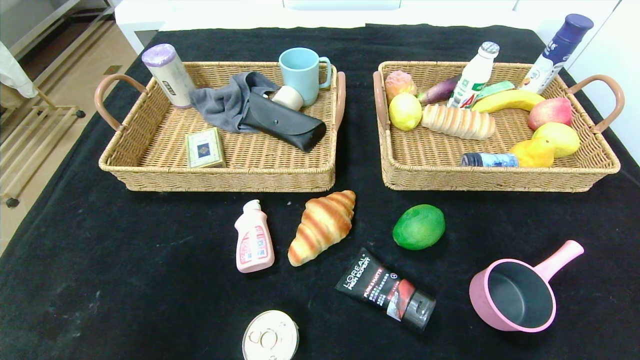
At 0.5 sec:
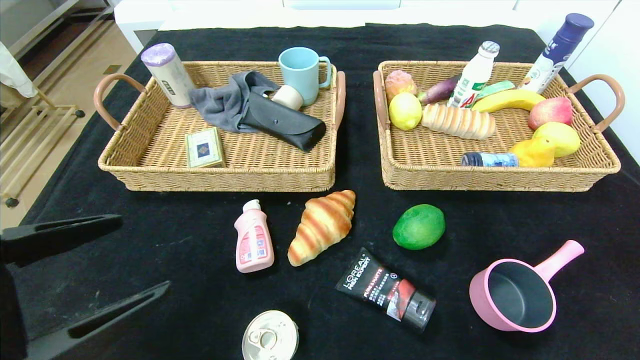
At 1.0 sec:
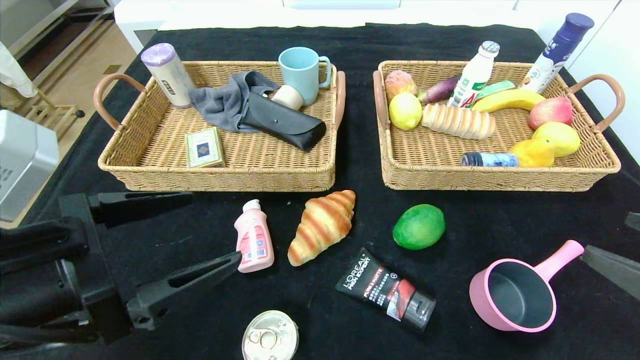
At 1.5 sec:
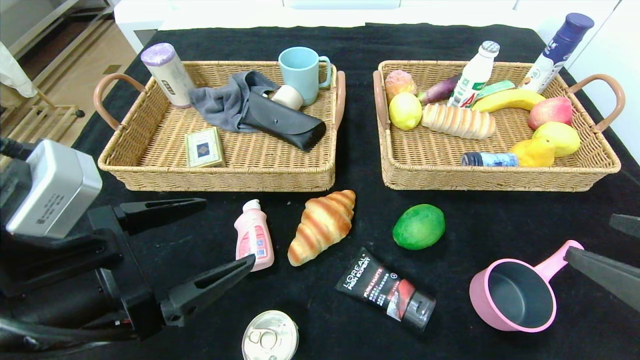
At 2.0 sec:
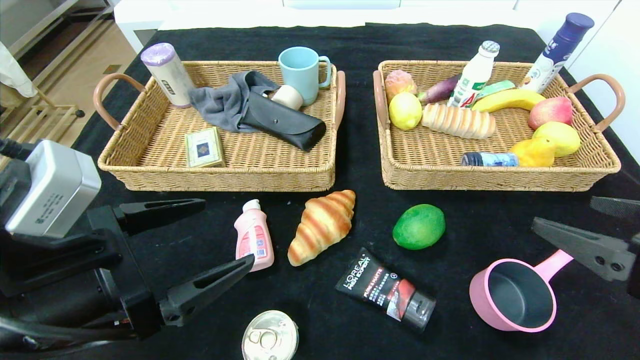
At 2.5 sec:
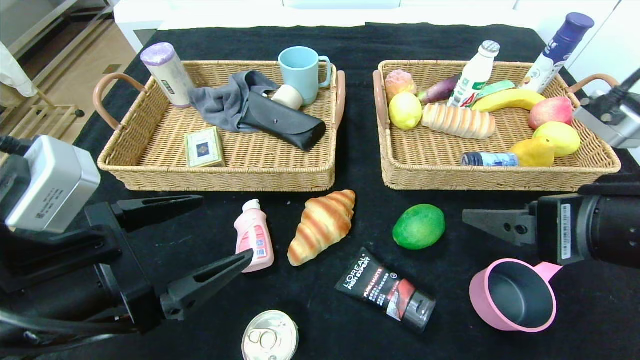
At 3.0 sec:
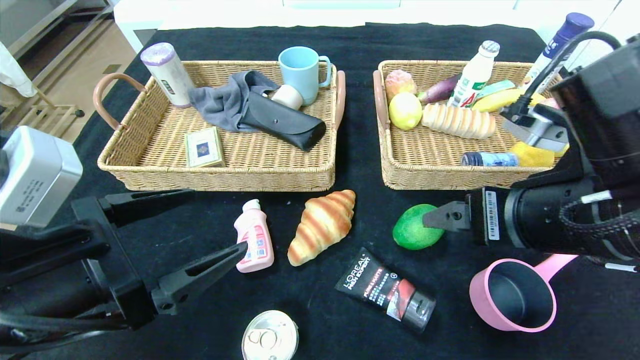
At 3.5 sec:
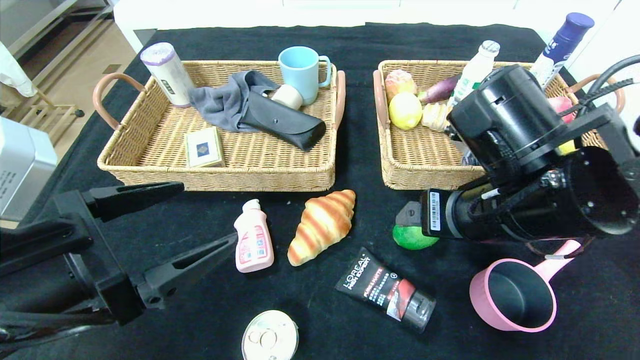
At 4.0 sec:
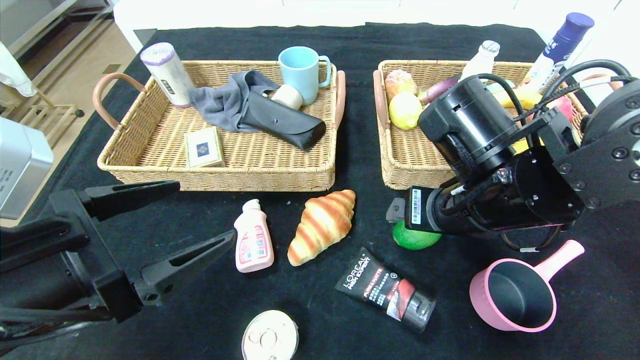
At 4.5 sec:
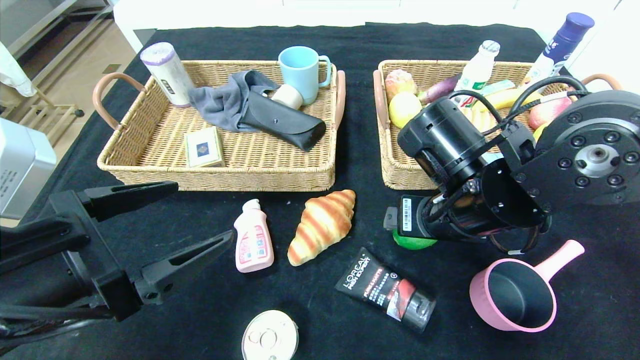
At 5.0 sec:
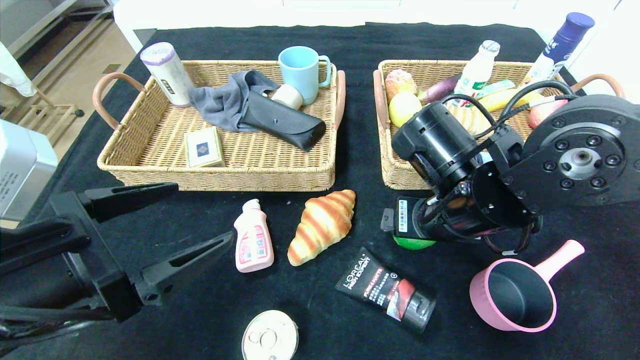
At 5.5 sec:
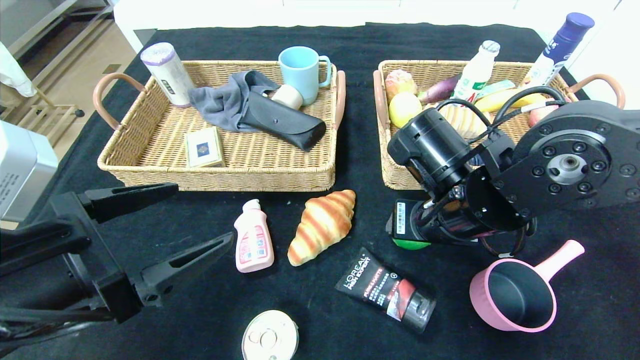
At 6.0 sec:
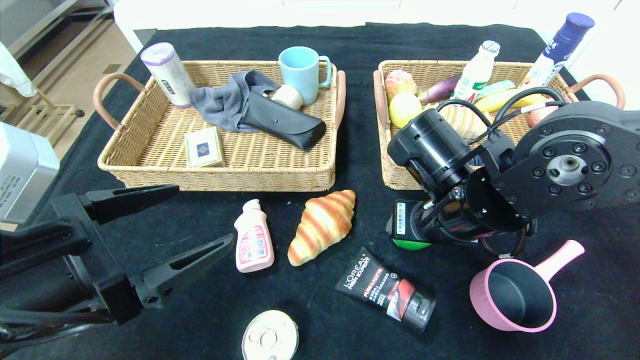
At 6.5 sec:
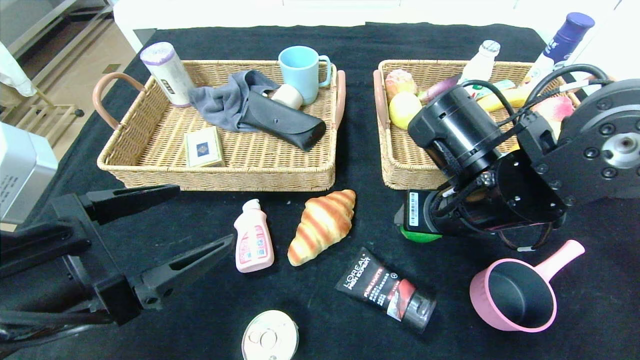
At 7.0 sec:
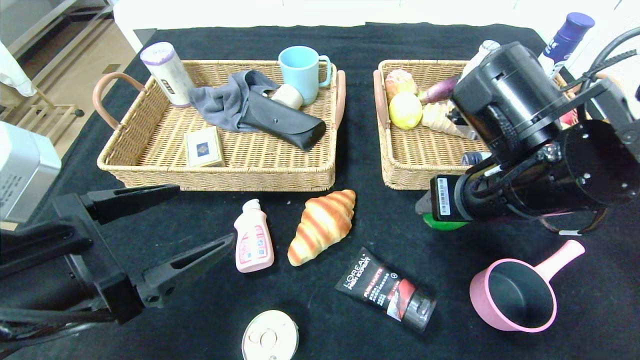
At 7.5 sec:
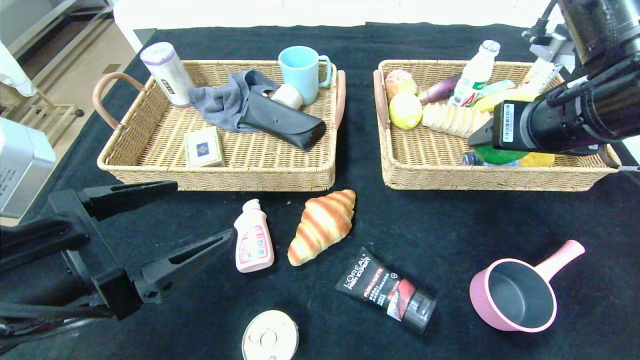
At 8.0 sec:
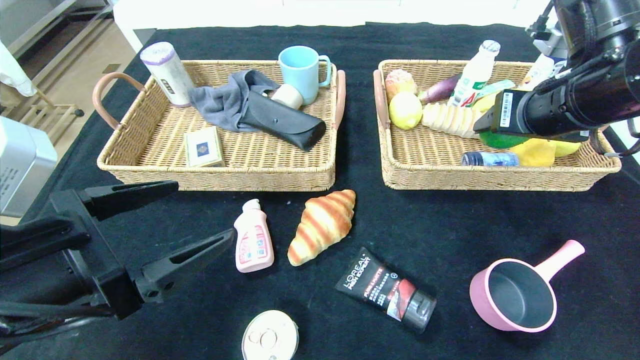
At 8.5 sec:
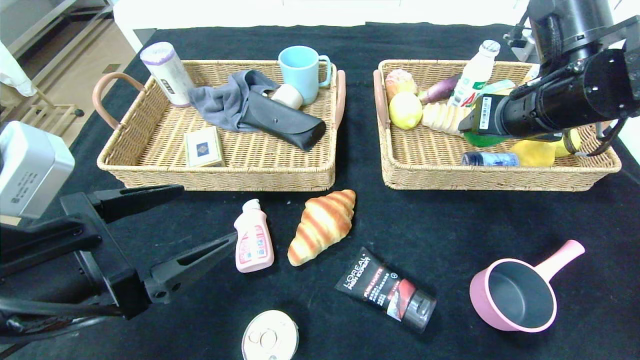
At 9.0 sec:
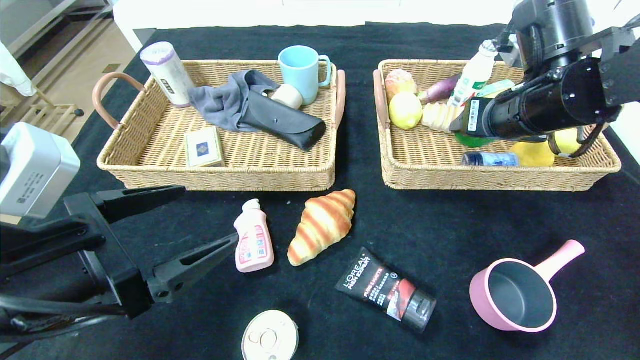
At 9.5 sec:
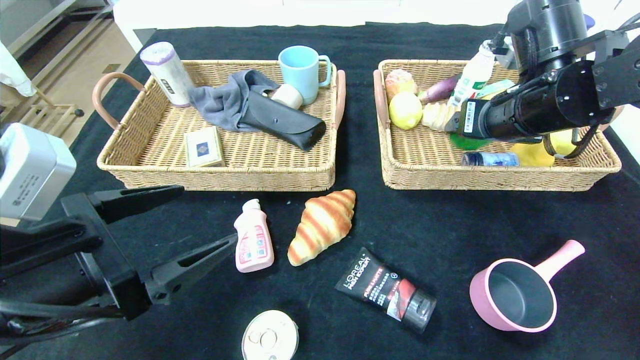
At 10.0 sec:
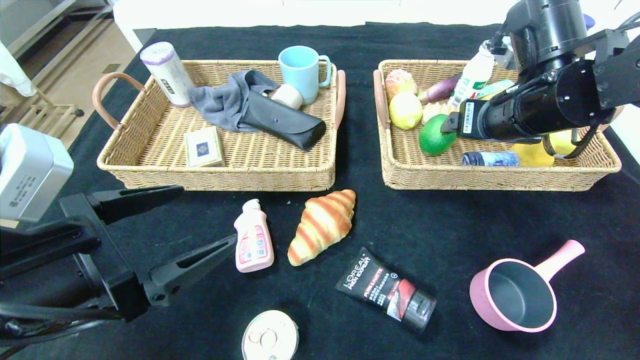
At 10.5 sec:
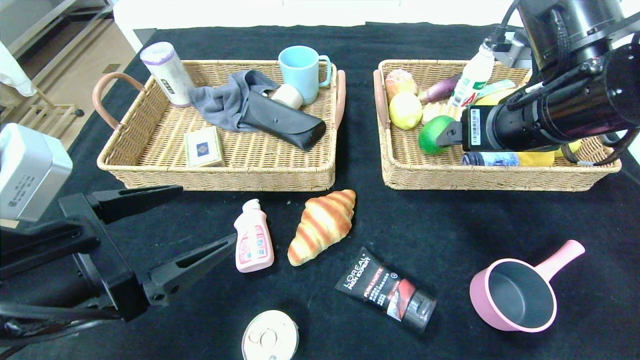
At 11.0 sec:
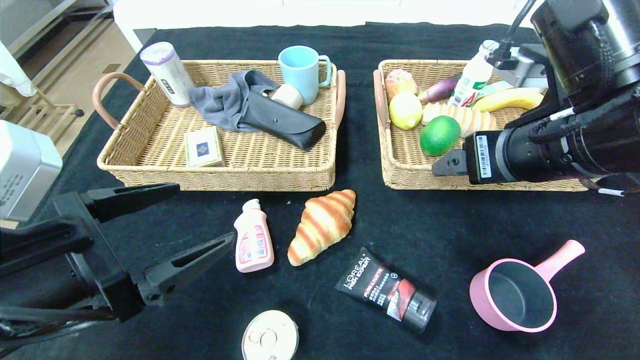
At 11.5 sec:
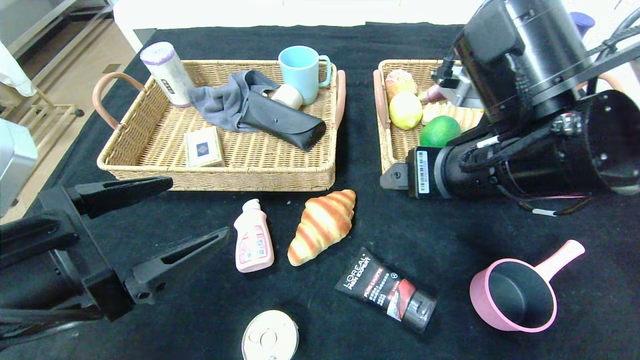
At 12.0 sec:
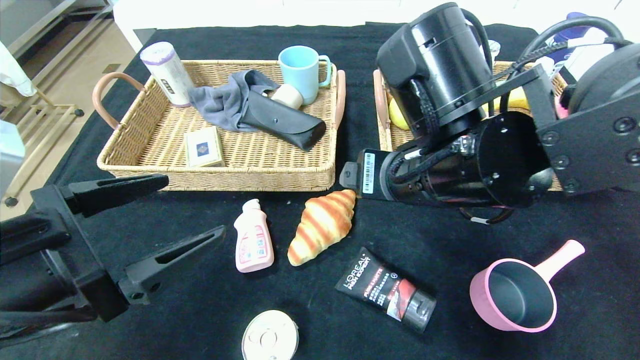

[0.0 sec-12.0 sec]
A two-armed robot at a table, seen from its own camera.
Step, 0.0 sec to 9.5 sec: Grasp the green lemon and put it in the right basket.
0.0 sec to 2.0 sec: The left gripper moves forward and to the right, some 15 cm. Meanwhile the right gripper travels forward, to the left and upward by approximately 15 cm.
2.0 sec to 4.0 sec: The right gripper is displaced to the left and forward by approximately 20 cm.
4.0 sec to 6.0 sec: The grippers stay close to where they were, moving slightly.
6.0 sec to 8.0 sec: The right gripper shifts approximately 15 cm upward and to the right.
8.0 sec to 10.0 sec: The grippers stay close to where they were, moving slightly.
10.0 sec to 12.0 sec: The right gripper travels to the left and backward by approximately 15 cm.

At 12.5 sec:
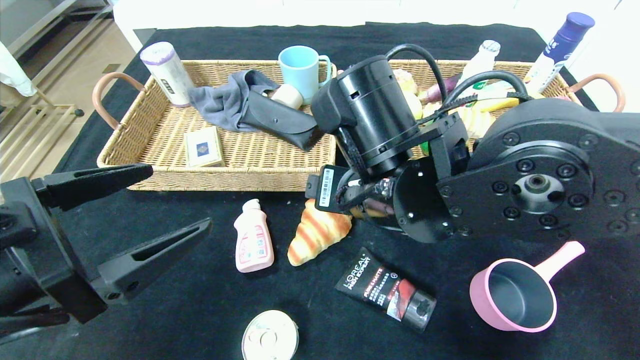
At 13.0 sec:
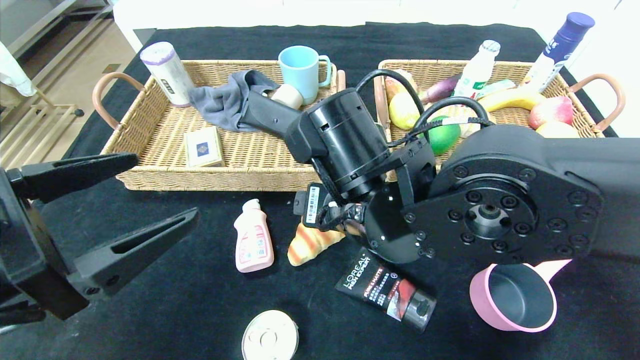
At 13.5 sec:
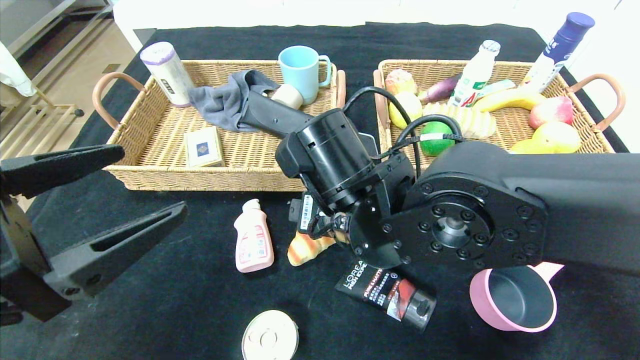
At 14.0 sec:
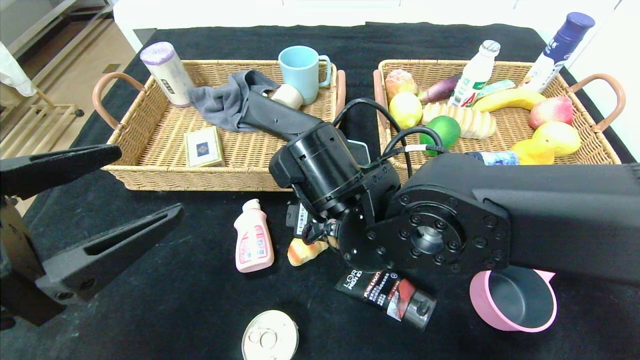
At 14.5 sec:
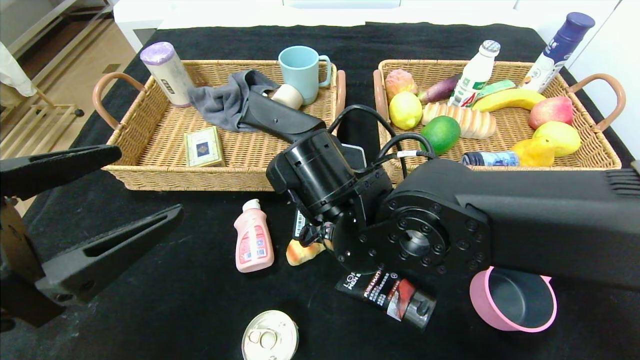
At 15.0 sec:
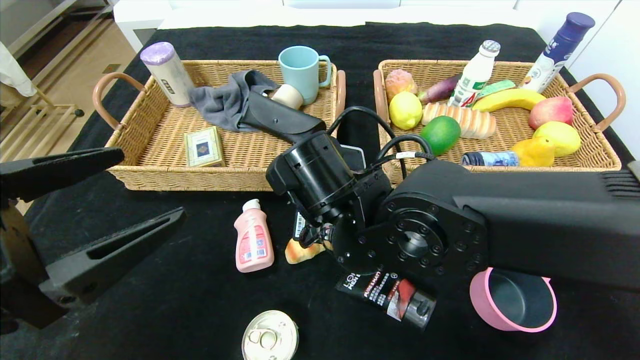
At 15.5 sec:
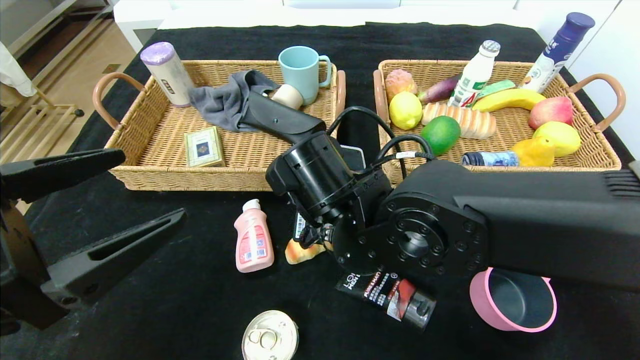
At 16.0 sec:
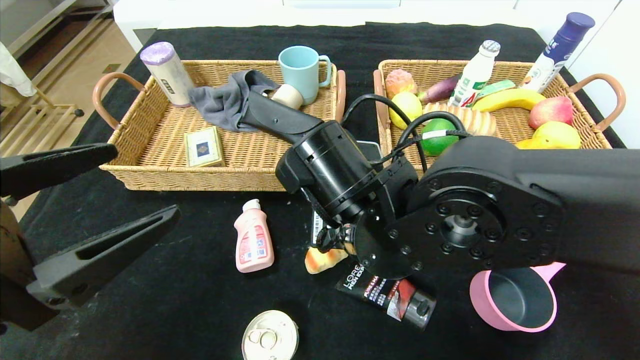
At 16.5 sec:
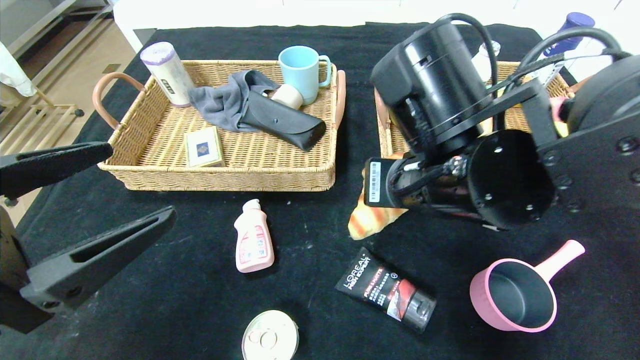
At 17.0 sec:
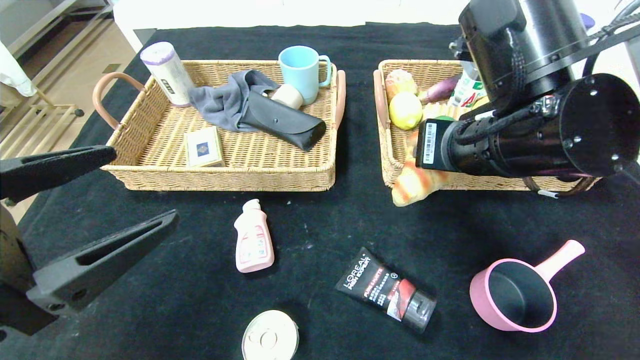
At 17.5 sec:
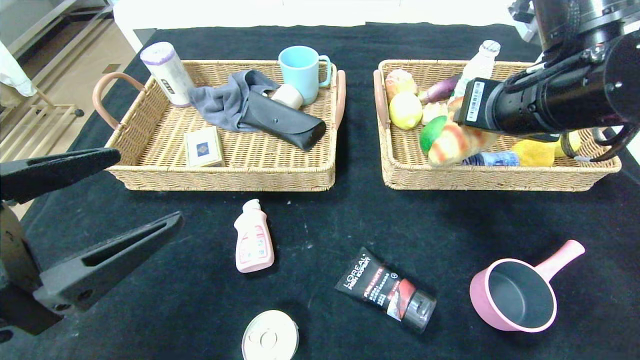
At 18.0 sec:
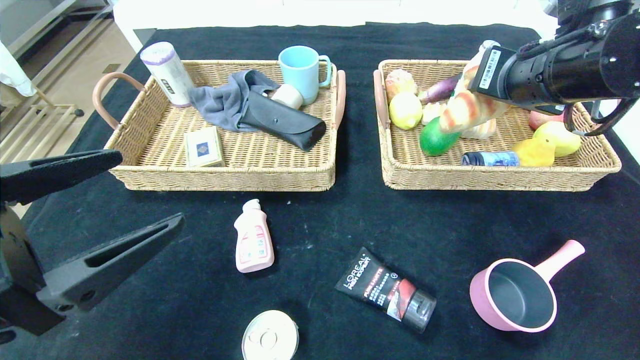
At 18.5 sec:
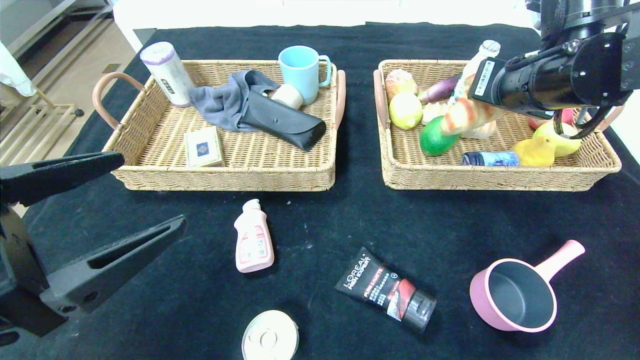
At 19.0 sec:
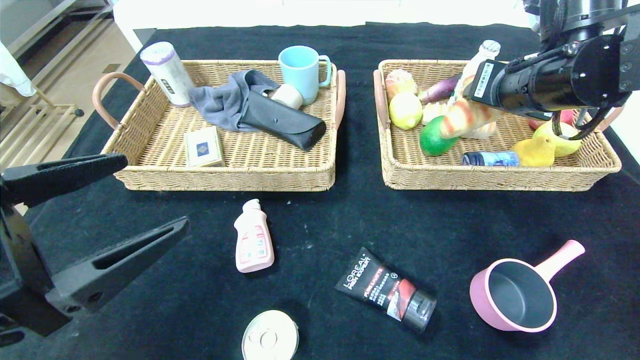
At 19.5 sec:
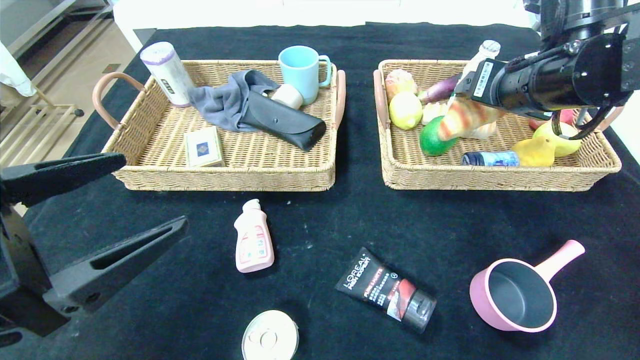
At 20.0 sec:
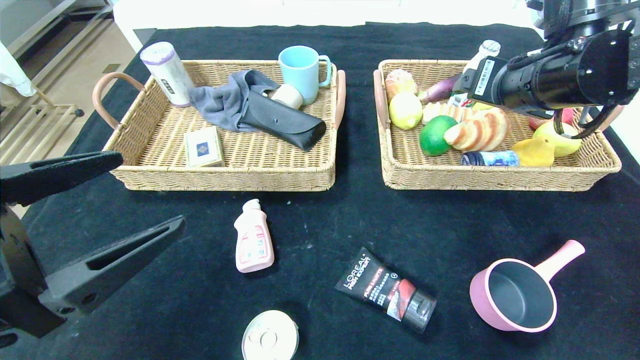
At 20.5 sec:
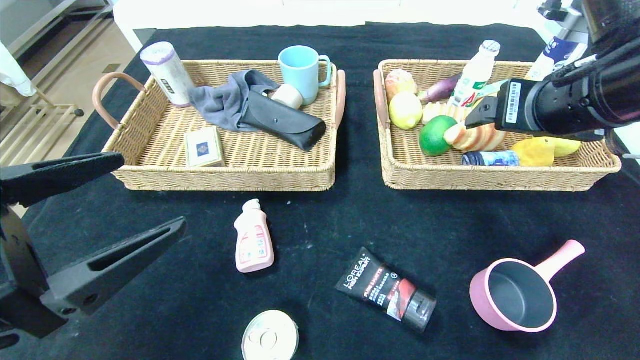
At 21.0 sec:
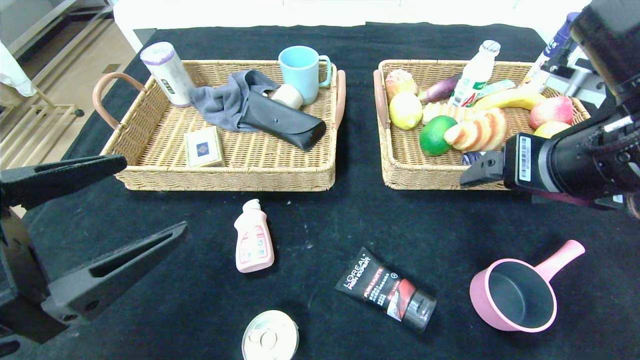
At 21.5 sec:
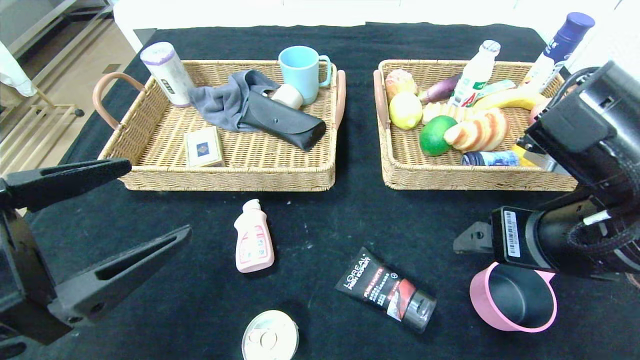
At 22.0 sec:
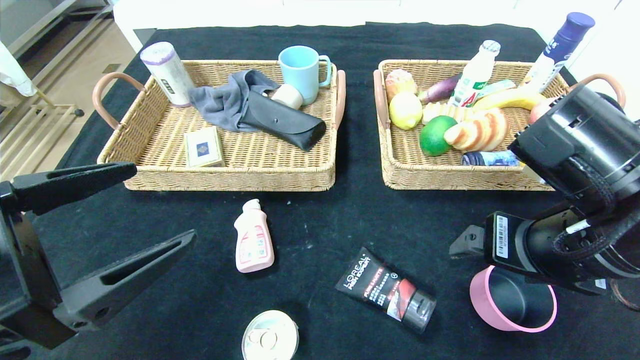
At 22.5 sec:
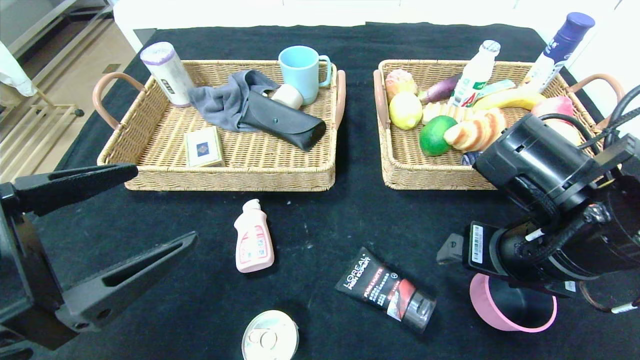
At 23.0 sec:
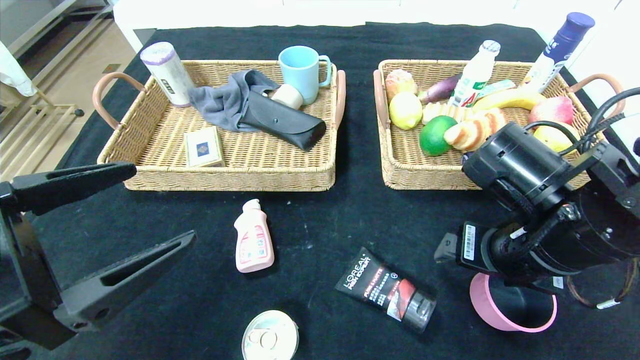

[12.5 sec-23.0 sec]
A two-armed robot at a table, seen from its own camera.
Step, 12.5 sec to 19.5 sec: Grasp the croissant and put it in the right basket.
12.5 sec to 14.5 sec: The right gripper shifts by about 5 cm, and closes its fingers.
14.5 sec to 16.5 sec: The right gripper travels to the right and upward by about 10 cm.
16.5 sec to 19.0 sec: The right gripper is displaced to the right, forward and upward by about 15 cm.
19.0 sec to 21.0 sec: The right gripper moves backward, approximately 10 cm, and opens up.
21.0 sec to 23.0 sec: The right gripper heads downward, covering roughly 10 cm.
